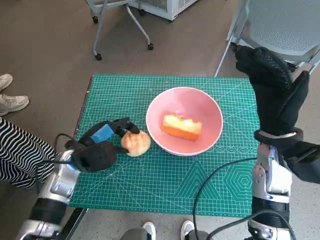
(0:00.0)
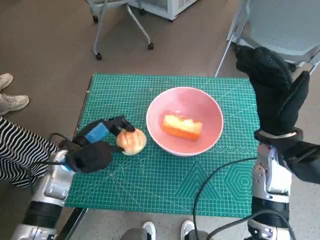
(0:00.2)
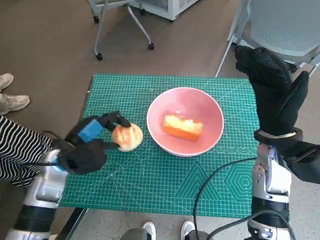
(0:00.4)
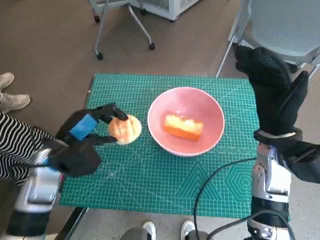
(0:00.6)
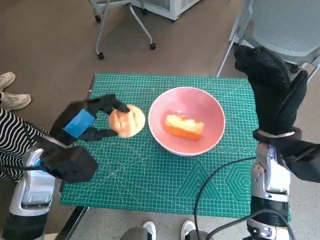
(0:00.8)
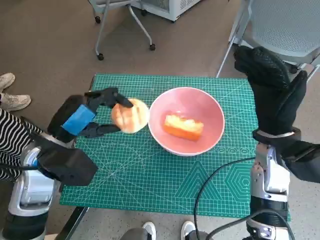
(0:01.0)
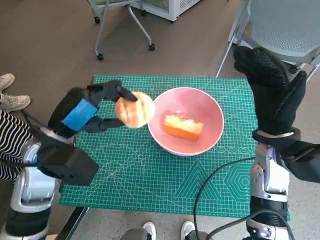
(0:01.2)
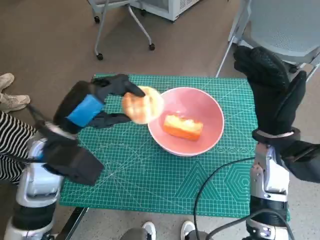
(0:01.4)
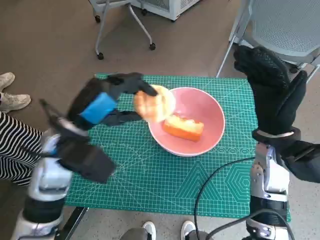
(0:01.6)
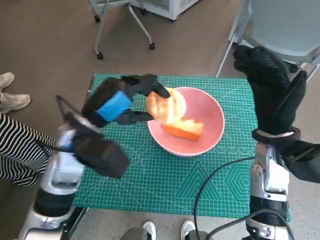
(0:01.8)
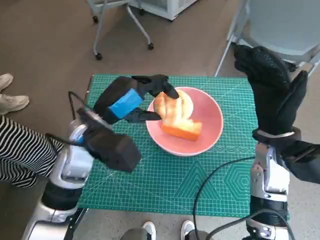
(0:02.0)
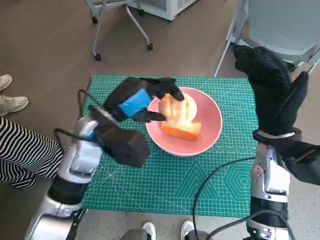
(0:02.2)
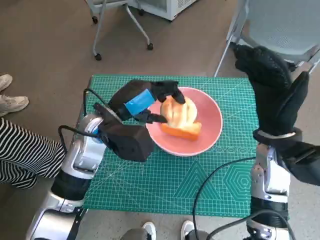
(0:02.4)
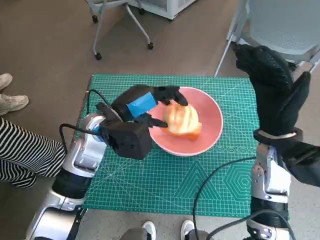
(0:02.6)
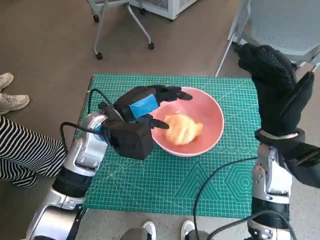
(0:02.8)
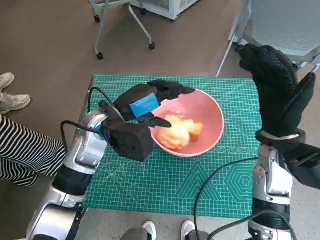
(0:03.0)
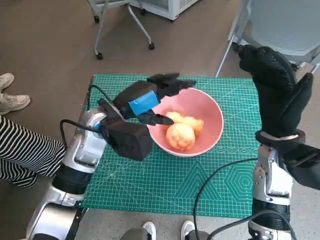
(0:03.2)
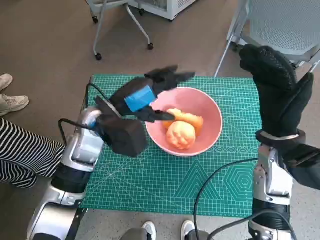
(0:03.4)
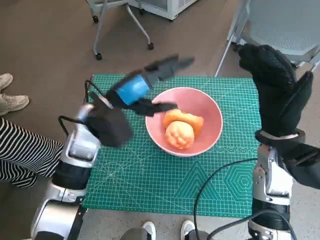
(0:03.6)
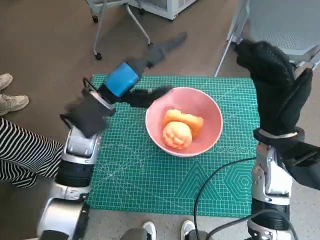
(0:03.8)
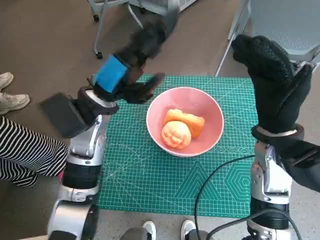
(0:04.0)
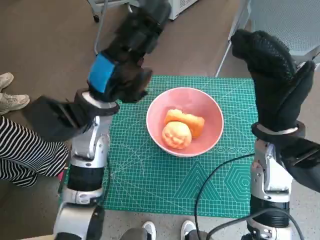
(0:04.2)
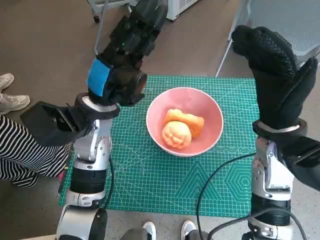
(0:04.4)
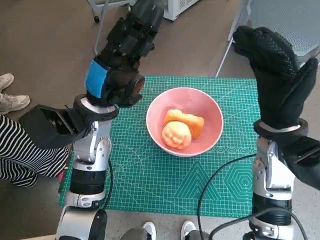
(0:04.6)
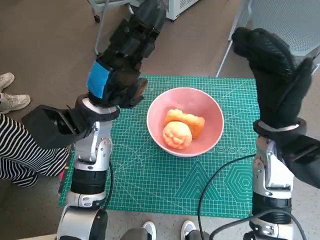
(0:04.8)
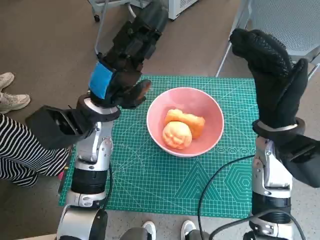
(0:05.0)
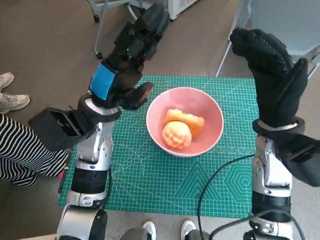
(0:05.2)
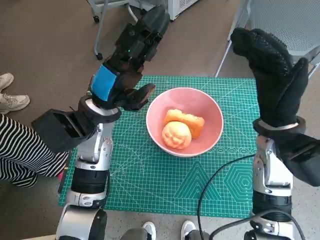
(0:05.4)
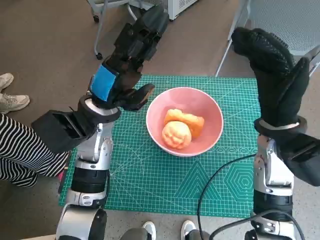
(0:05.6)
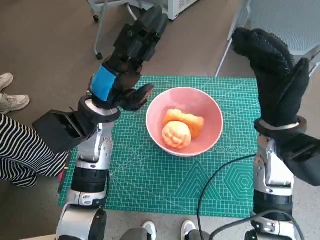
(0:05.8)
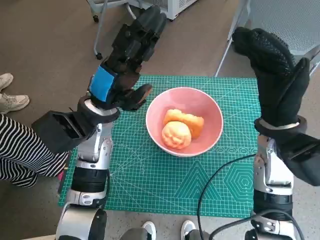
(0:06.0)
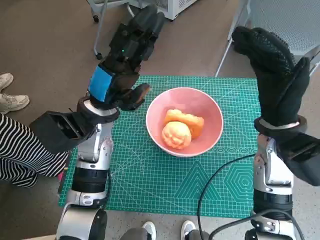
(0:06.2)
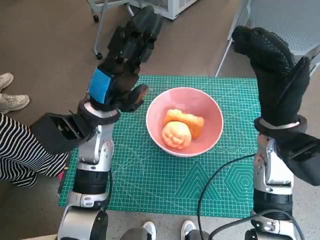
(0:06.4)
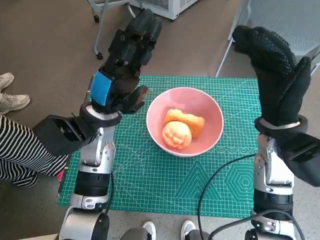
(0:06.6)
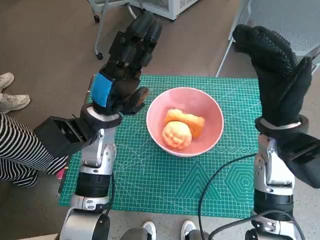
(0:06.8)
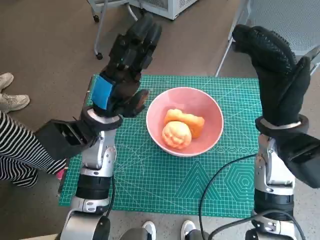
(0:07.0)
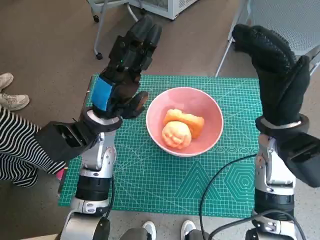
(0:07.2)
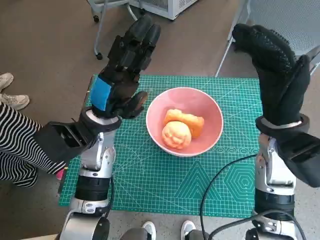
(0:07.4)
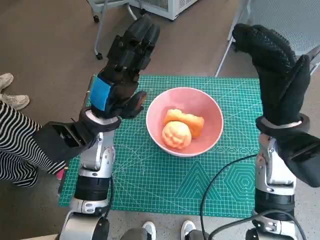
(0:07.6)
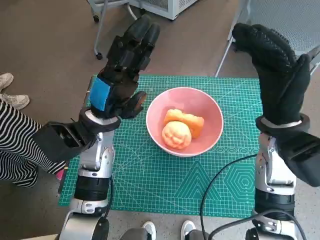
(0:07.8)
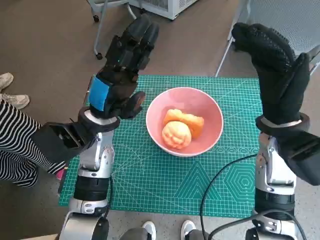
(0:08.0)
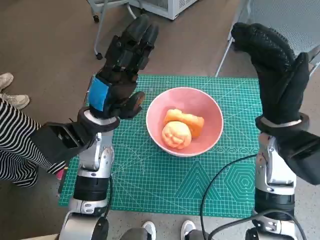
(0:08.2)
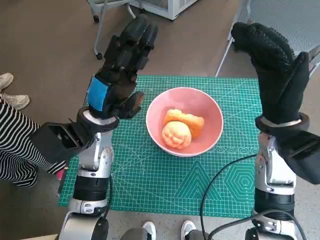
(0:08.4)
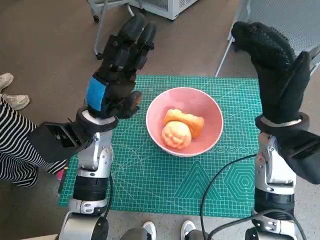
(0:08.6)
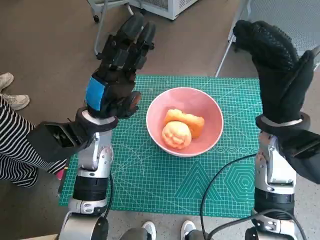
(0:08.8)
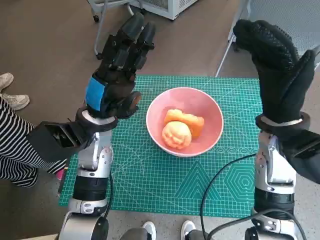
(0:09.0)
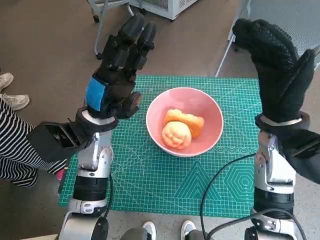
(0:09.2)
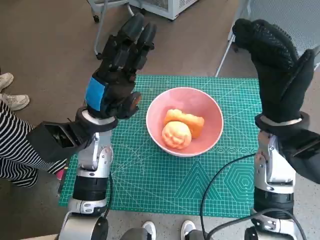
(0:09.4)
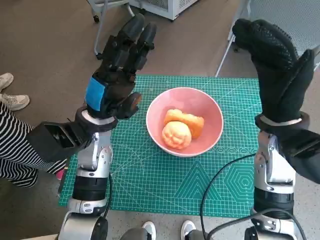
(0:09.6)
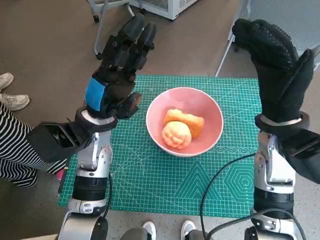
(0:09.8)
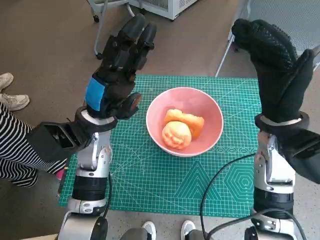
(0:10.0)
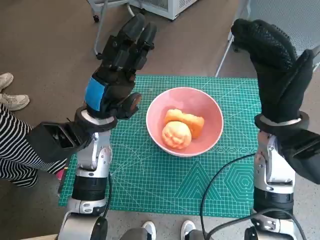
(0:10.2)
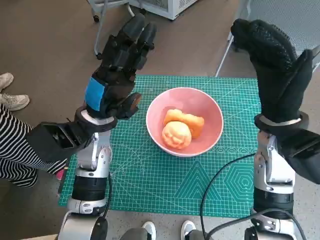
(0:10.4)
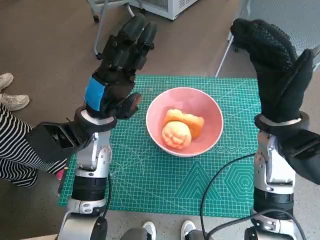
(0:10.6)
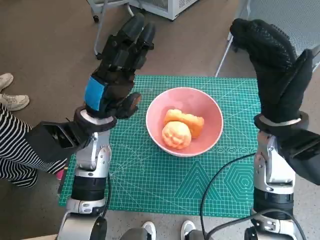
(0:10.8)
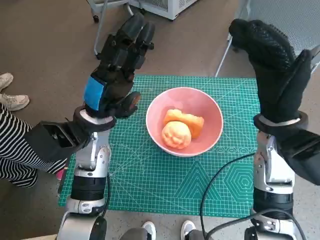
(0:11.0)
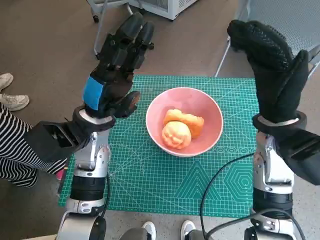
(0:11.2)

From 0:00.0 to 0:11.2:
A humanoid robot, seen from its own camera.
Task of the whole recording: Push the bowl into the center of the table and put the bread into the bowl.
Step, from 0:00.2 to 0:03.2: Place the round bread in pink bowl with left hand.
From 0:00.0 to 0:01.6: The left hand is displaced upward by some 10 cm.
From 0:01.6 to 0:03.2: The left hand moves forward and to the right, roughly 5 cm.
From 0:04.8 to 0:08.0: There are only small adjustments of the hands.
From 0:08.0 to 0:11.2: The two hands keep their place.
